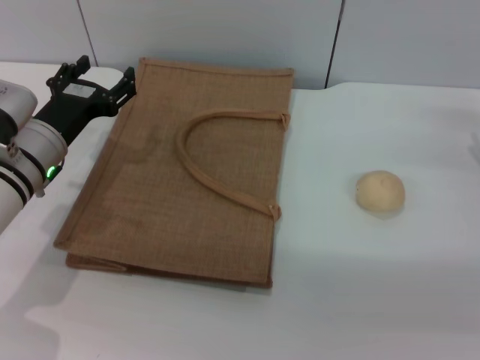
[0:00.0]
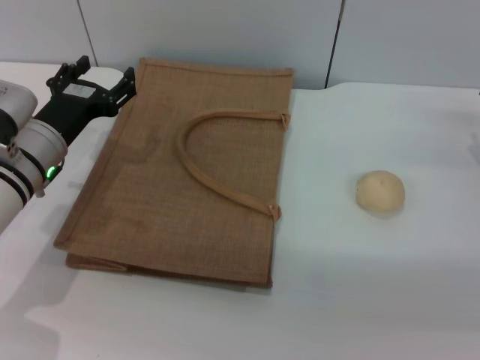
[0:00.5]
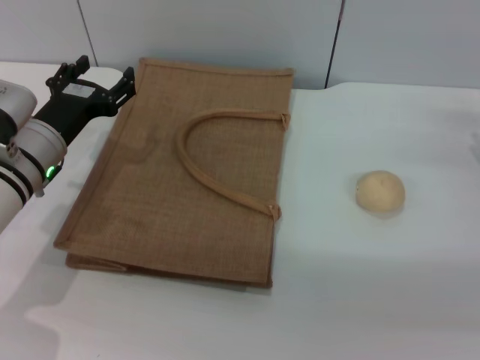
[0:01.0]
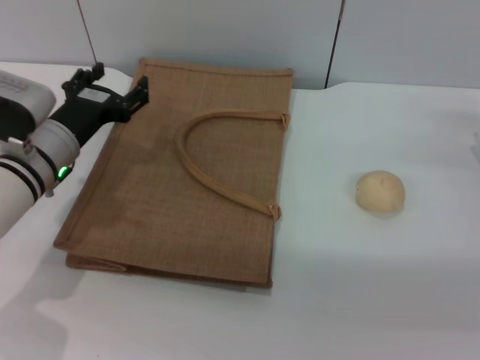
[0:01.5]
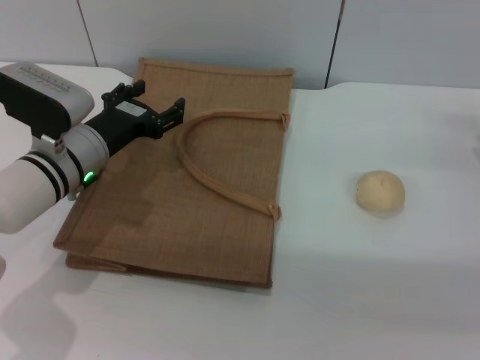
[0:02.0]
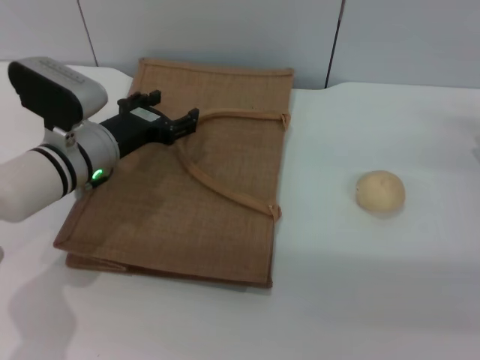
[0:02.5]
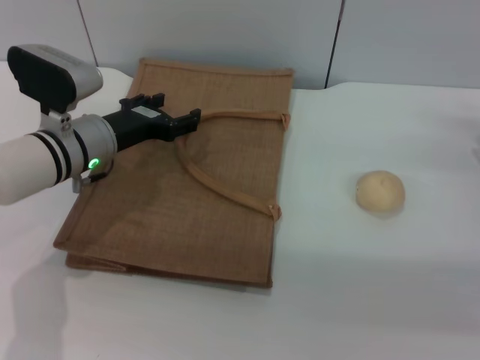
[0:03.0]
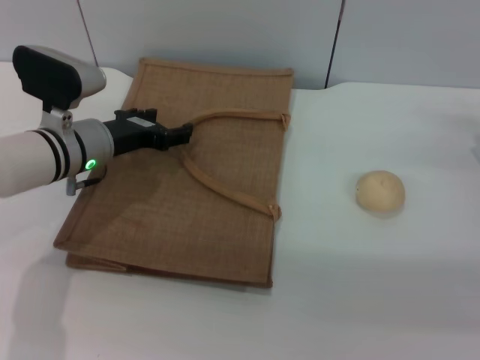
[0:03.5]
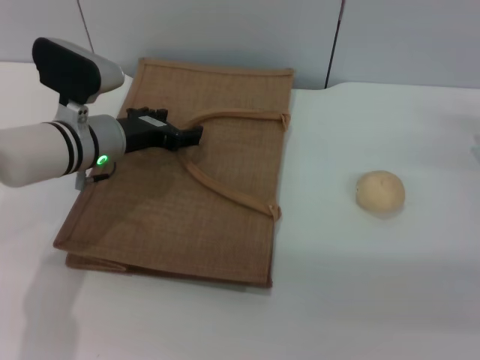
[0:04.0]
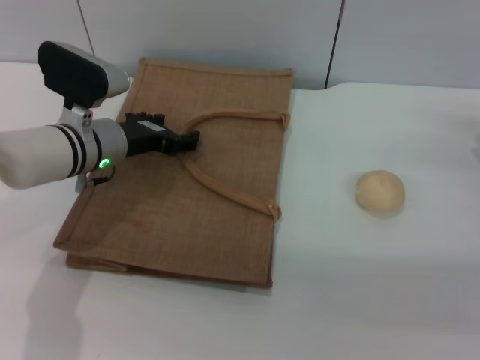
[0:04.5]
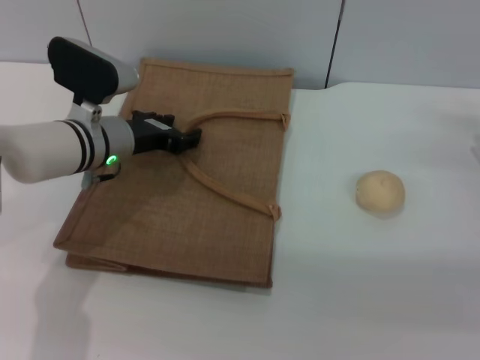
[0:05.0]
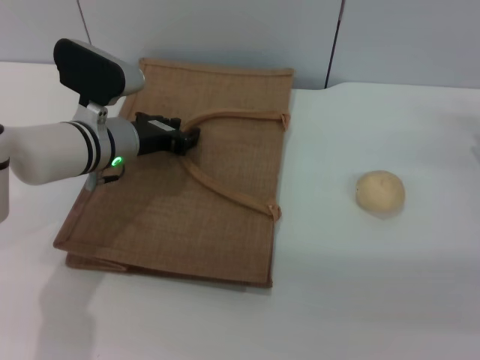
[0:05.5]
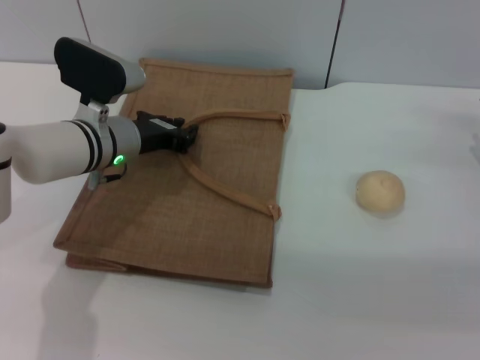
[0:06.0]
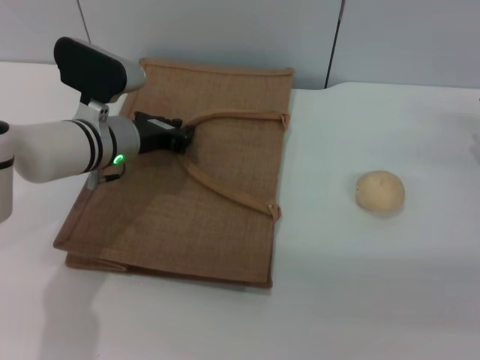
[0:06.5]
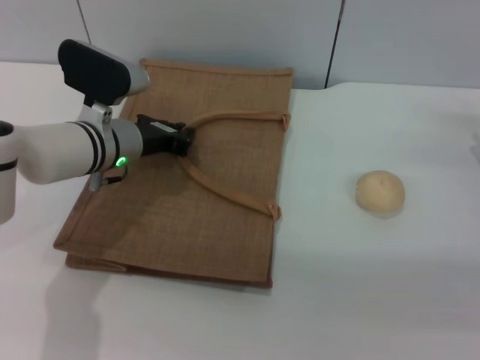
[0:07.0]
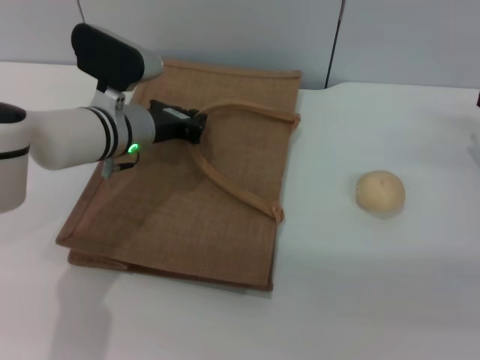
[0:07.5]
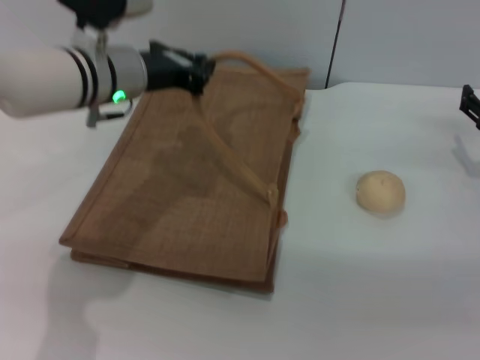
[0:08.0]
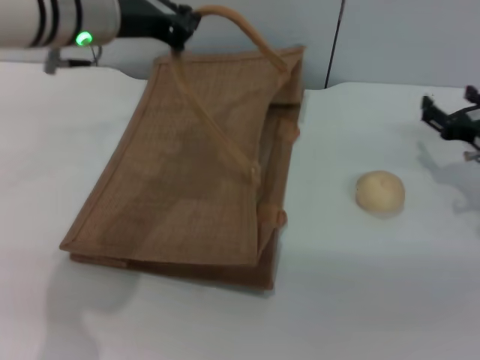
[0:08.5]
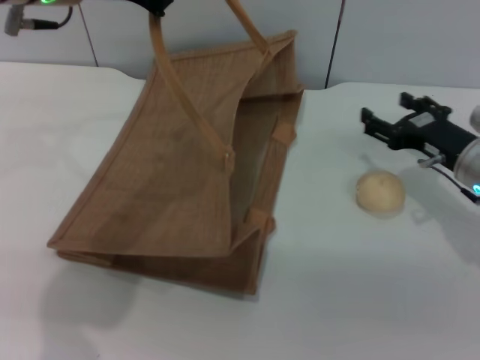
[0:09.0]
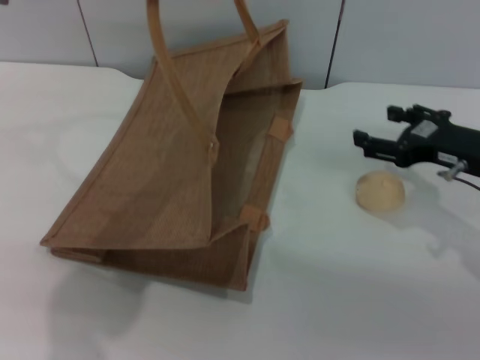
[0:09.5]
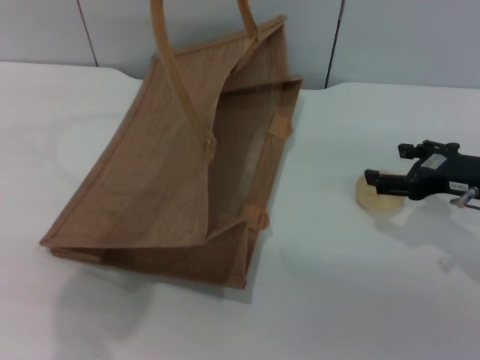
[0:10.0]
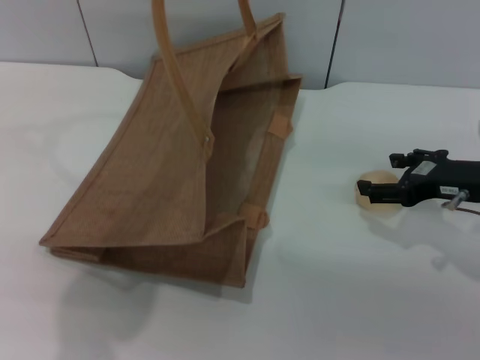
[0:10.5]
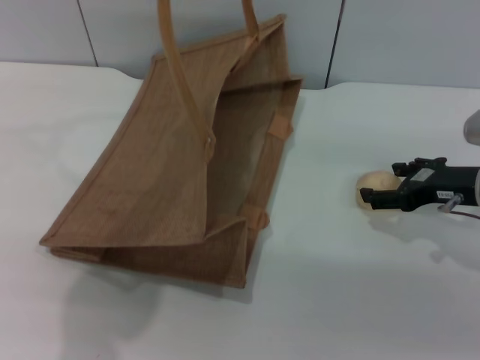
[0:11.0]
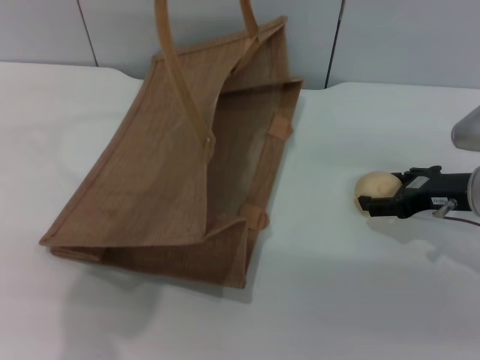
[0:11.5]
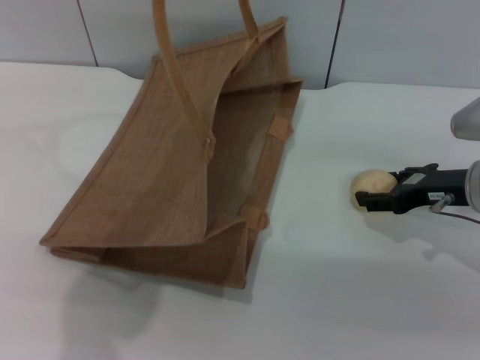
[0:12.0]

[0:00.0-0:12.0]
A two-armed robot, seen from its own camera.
Task of the whole recording: pick up the egg yolk pastry from the table and place it in the brown handbag.
Step, 0:00.0 to 0:06.0: Lift the woven bag with the left gripper to open it.
0:00.0 to 0:02.0: The grippers stay close to where they were, moving slightly.
0:02.0 to 0:04.0: The grippers move only a little.
0:04.0 to 0:06.0: The left gripper closes.
0:06.0 to 0:08.0: The left gripper shifts approximately 10 cm upward.
0:08.0 to 0:10.0: The left gripper is displaced upward by about 15 cm, while the right gripper is displaced upward by roughly 5 cm.
0:10.0 to 0:12.0: There are only small adjustments of the grippers.

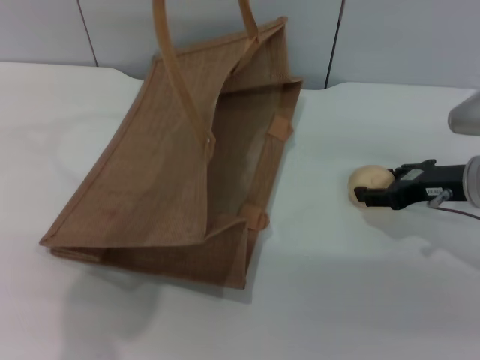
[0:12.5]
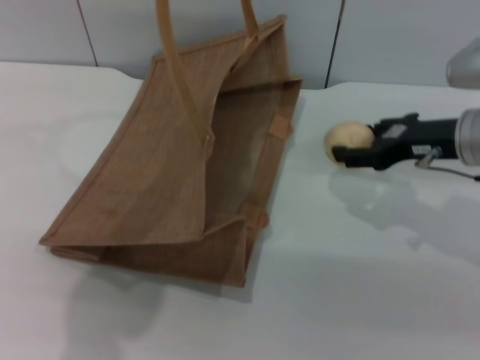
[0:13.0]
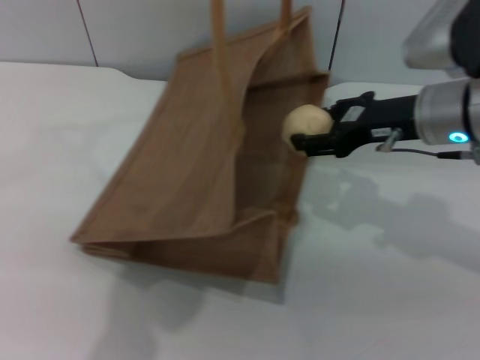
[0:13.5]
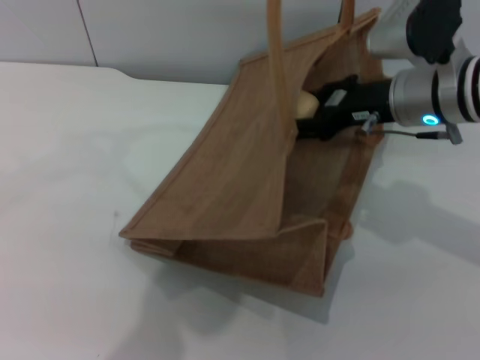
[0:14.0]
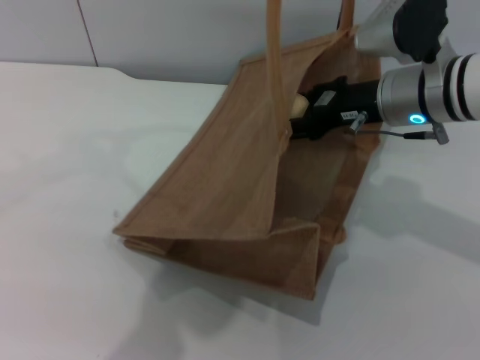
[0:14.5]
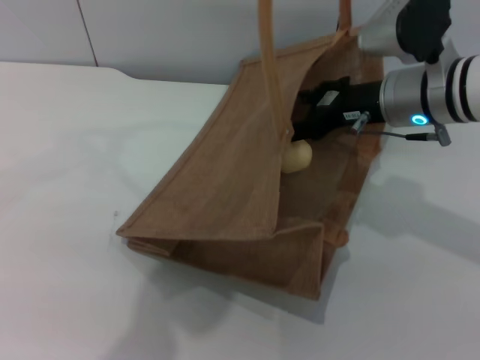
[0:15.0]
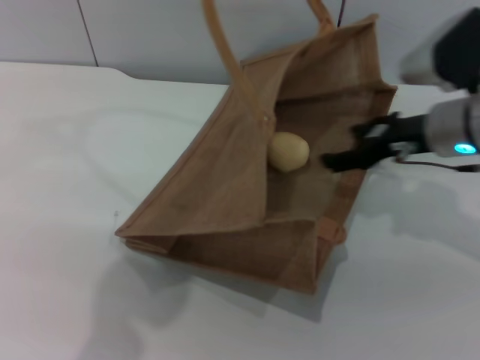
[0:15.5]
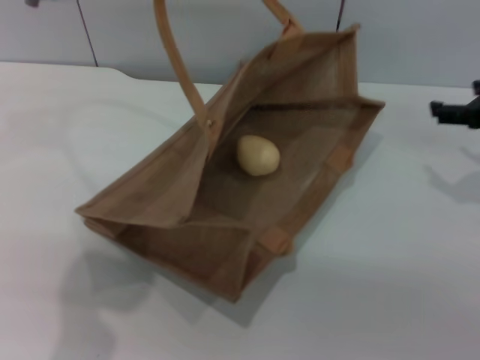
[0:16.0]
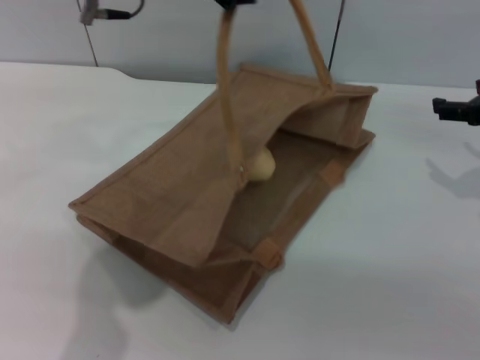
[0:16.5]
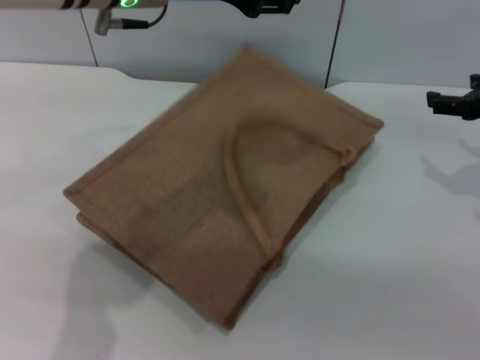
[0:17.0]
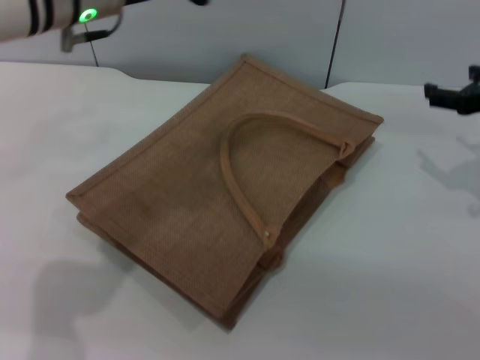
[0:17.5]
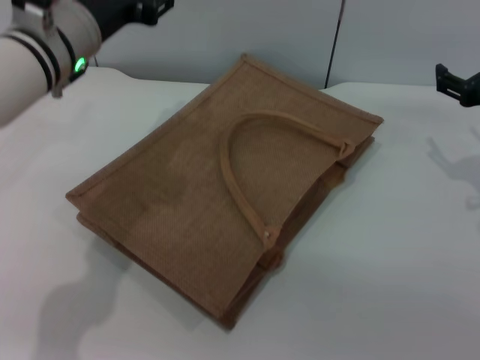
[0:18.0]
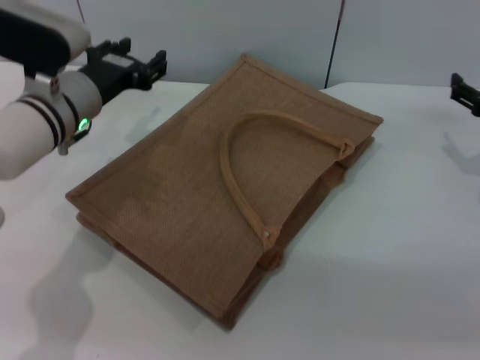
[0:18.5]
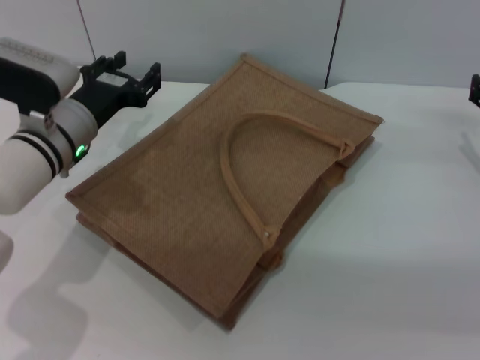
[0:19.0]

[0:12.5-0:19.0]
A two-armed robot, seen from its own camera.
Task of the whole recording: pick up the egg yolk pastry from the table and place it in the brown handbag.
Step, 0:13.0 to 0:15.5: Place the egg yolk pastry into the woven bag with the right gripper.
Step, 0:16.0 to 0:18.0: Lower the woven bag with the left gripper to close it.
0:12.5 to 0:14.5: The right gripper moves to the left and upward, some 10 cm; the left gripper goes some 10 cm to the right.
0:14.5 to 0:17.0: The left gripper travels downward and to the left by roughly 10 cm, and opens its fingers; the right gripper moves to the right, roughly 15 cm, and opens up.
0:17.0 to 0:19.0: The left gripper heads downward and to the left, covering about 20 cm. Meanwhile the right gripper is displaced downward by roughly 10 cm.

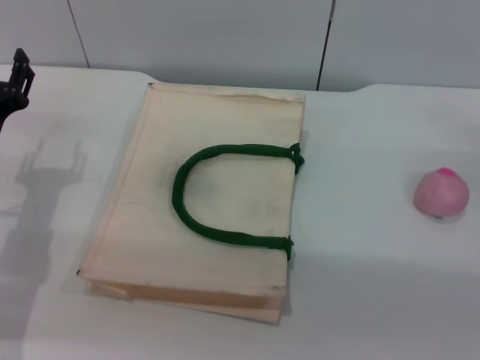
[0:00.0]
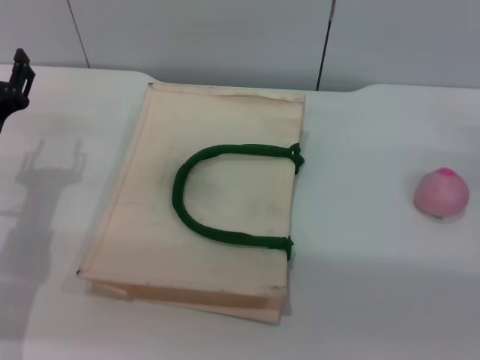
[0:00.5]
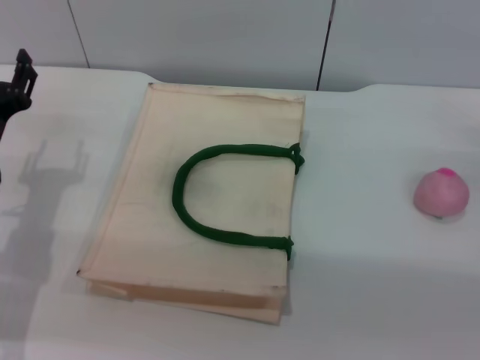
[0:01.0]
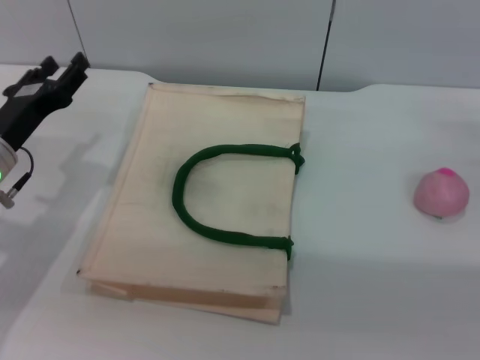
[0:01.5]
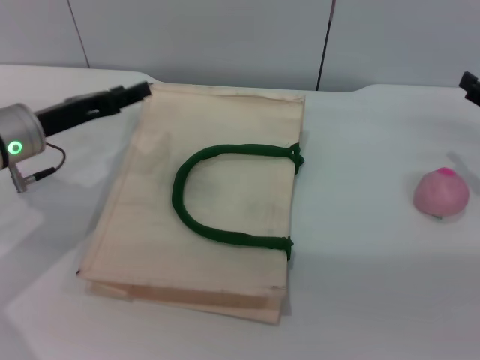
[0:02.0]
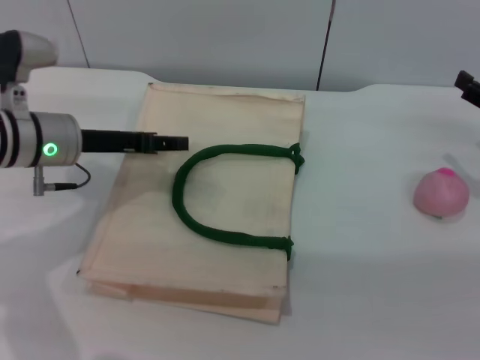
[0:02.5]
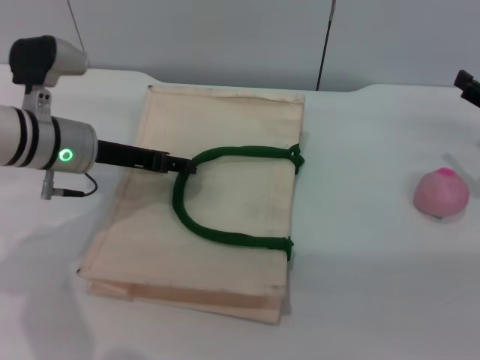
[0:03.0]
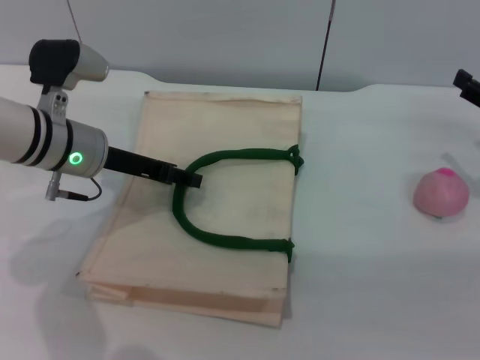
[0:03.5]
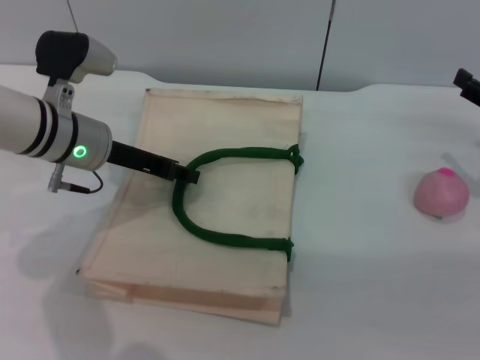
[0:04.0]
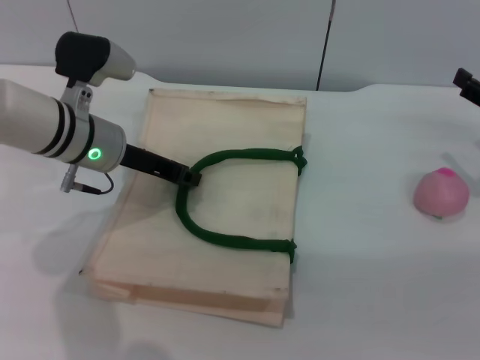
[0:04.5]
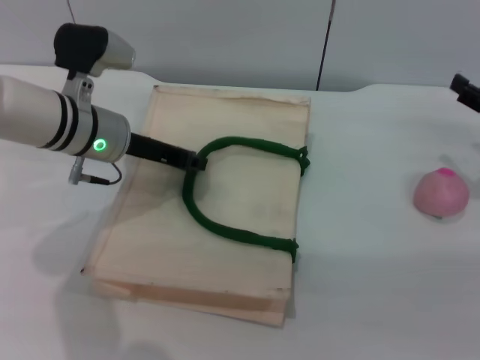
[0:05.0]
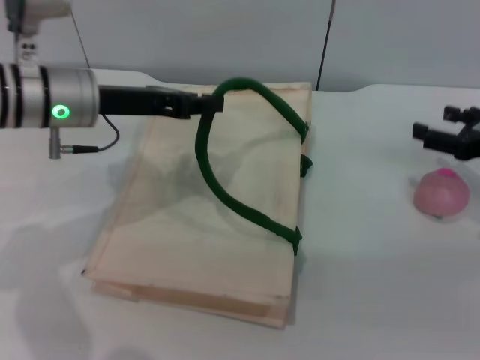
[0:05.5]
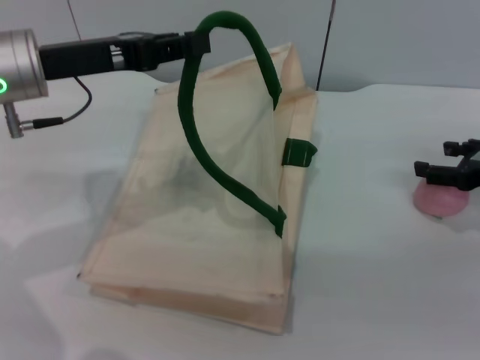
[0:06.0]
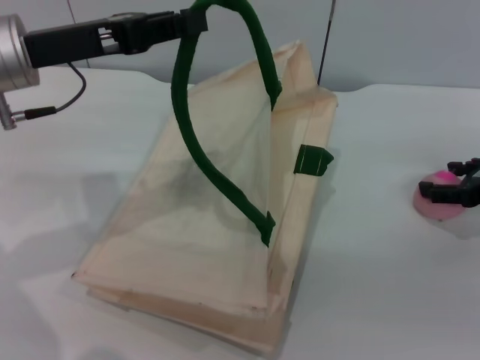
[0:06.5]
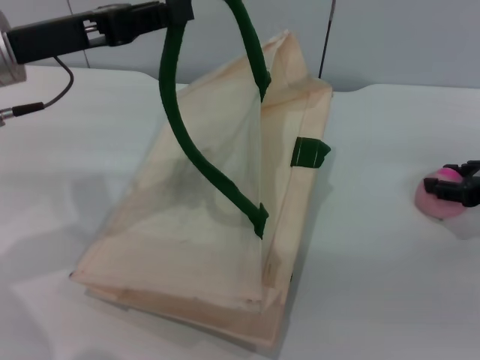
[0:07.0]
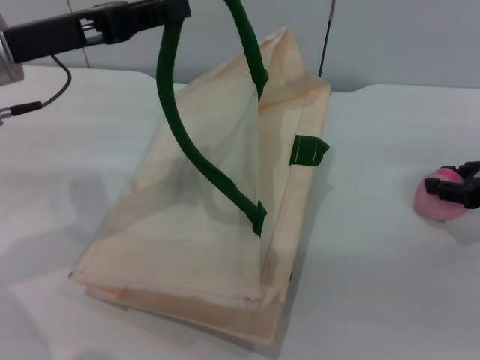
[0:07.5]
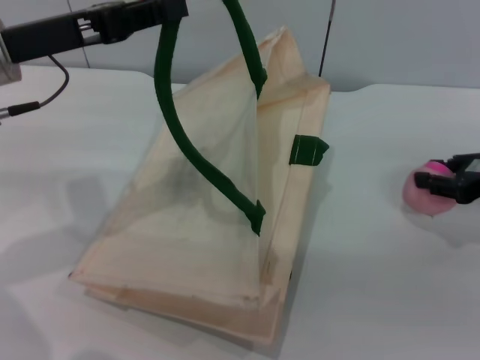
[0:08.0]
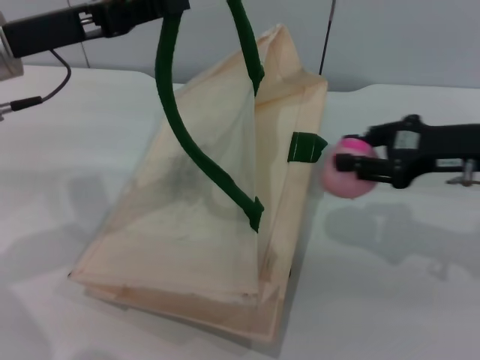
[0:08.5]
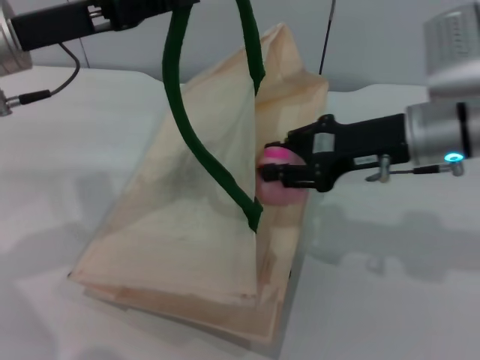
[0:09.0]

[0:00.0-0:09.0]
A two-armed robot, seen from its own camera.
Task of the whole recording: pick up the peach from the table and place it in the white handbag.
Step, 0:00.0 to 0:04.5: Lift the woven bag with the left gripper to open it.
Step, 0:05.0 to 0:08.0: Pick up the peach with the right gripper.
0:00.0 to 0:02.0: The left gripper shifts approximately 5 cm forward.
0:02.0 to 0:04.5: The left gripper heads to the right, covering roughly 10 cm, and closes its fingers.
0:04.5 to 0:07.0: The left gripper goes some 10 cm upward and to the left.
0:07.0 to 0:09.0: The right gripper moves to the left, about 15 cm, and closes up.
